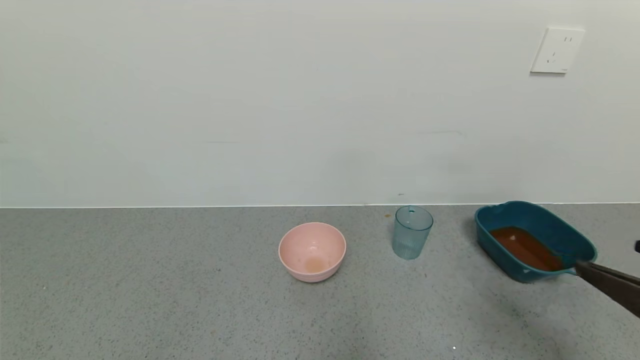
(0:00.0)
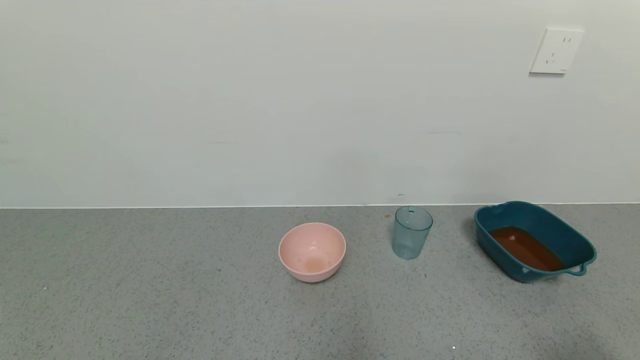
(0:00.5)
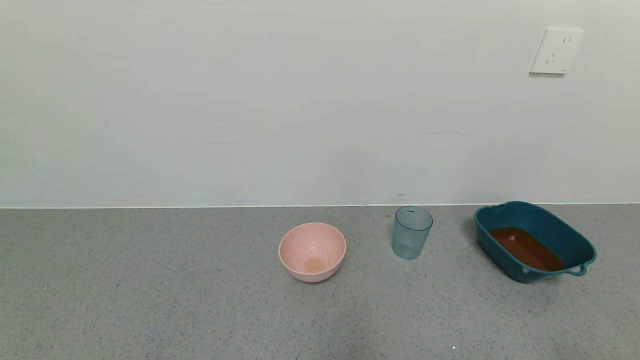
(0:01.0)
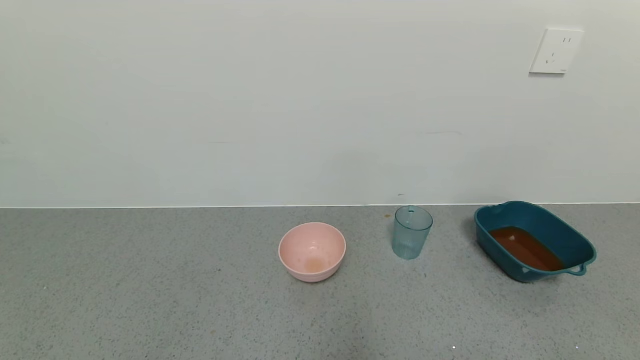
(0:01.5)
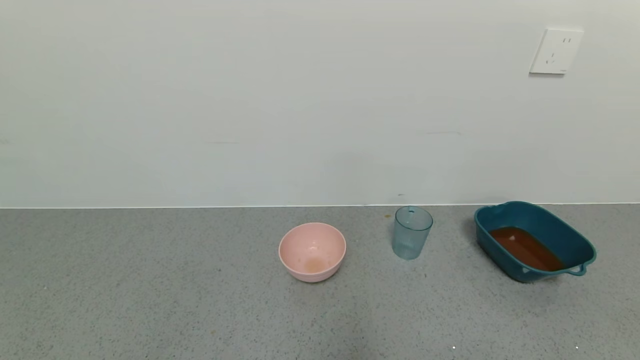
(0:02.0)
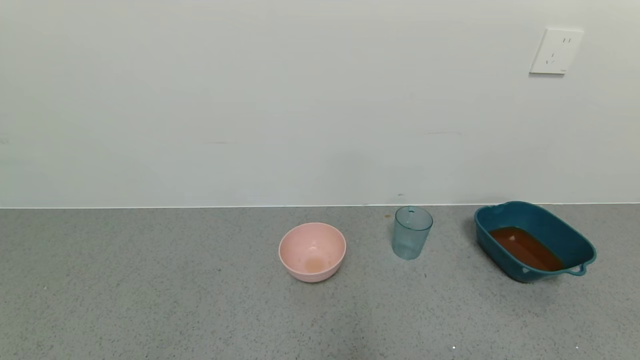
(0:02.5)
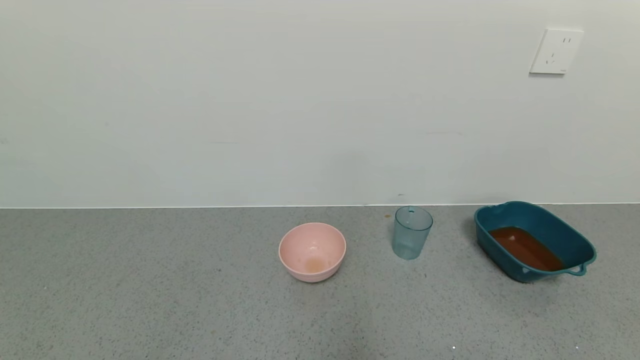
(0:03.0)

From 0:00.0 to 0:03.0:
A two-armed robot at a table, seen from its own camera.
Task of the whole recording: use a gripper to pick up the cup and pour the liquid into a bowl or tray.
From 0:00.0 to 0:01.5: The right gripper shifts approximately 15 cm backward and to the right.

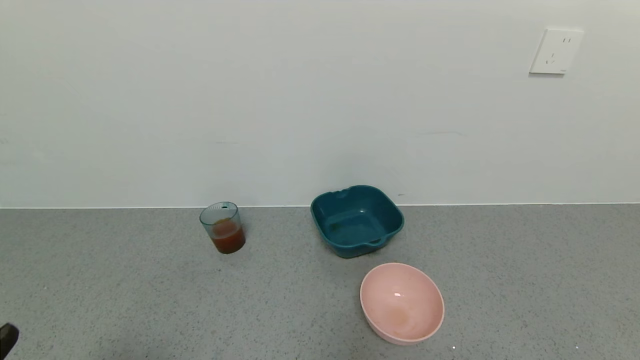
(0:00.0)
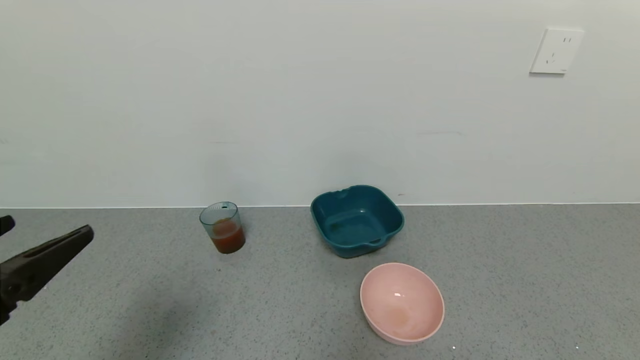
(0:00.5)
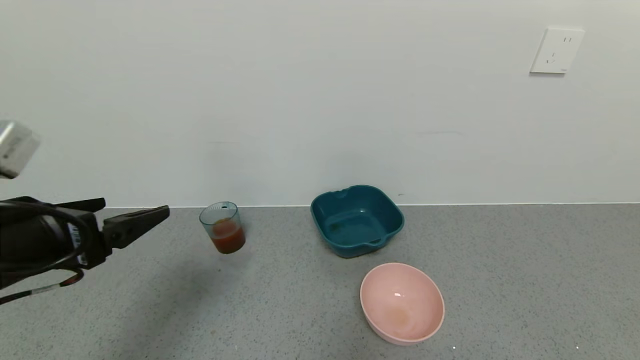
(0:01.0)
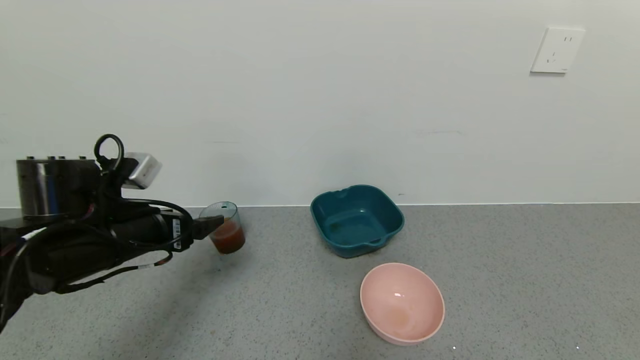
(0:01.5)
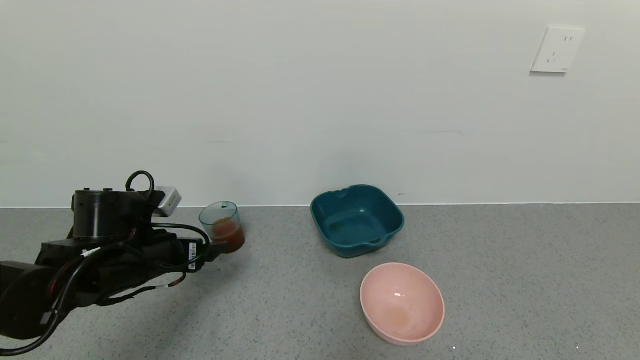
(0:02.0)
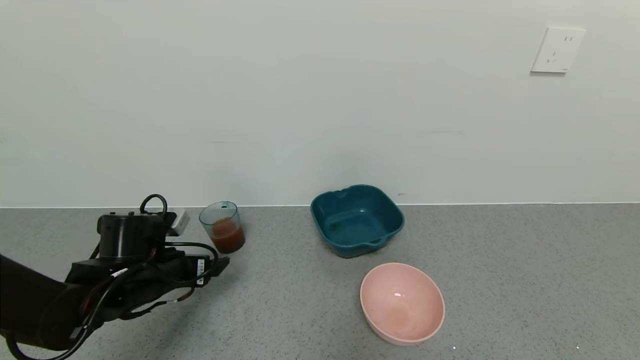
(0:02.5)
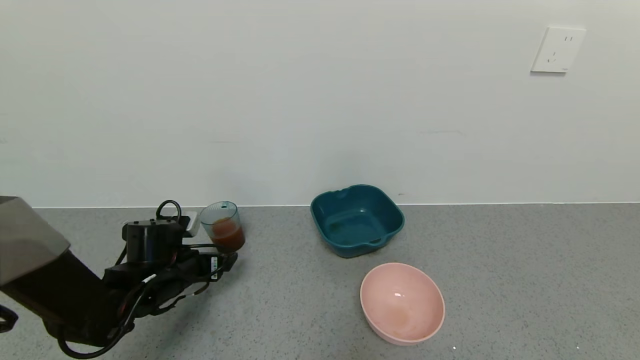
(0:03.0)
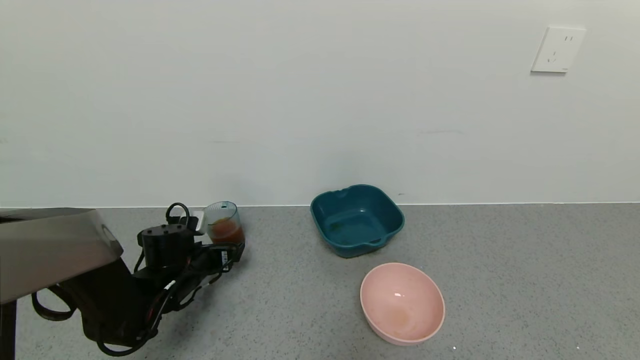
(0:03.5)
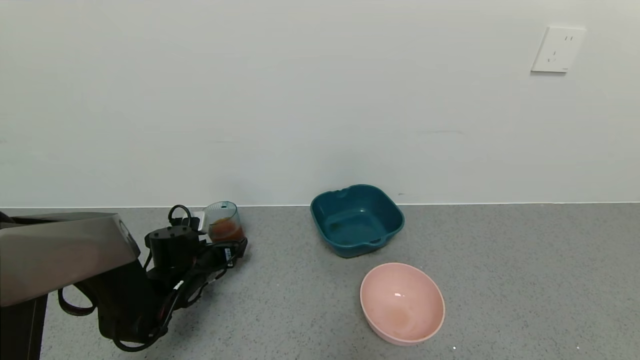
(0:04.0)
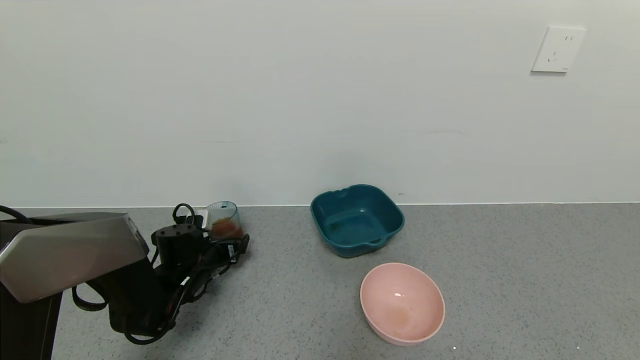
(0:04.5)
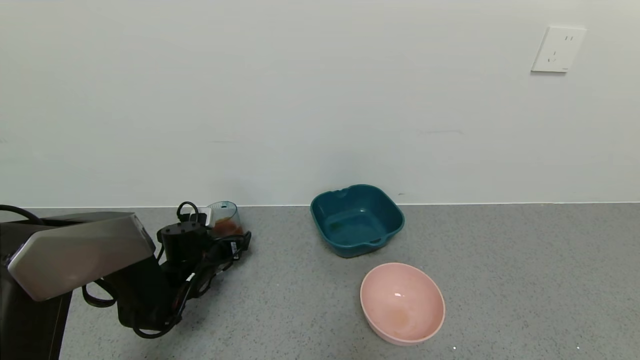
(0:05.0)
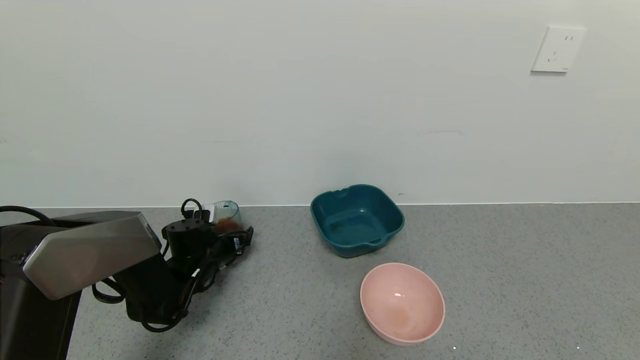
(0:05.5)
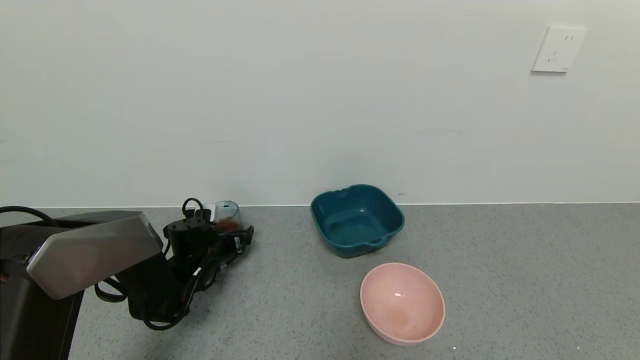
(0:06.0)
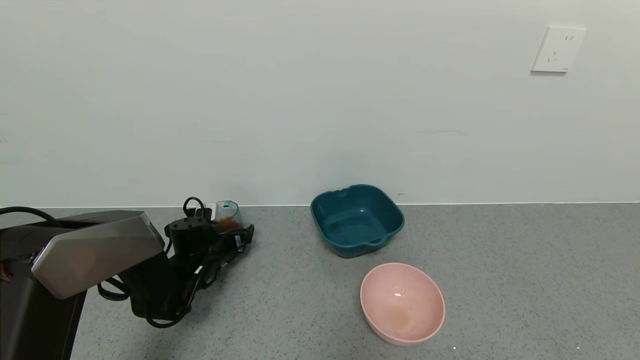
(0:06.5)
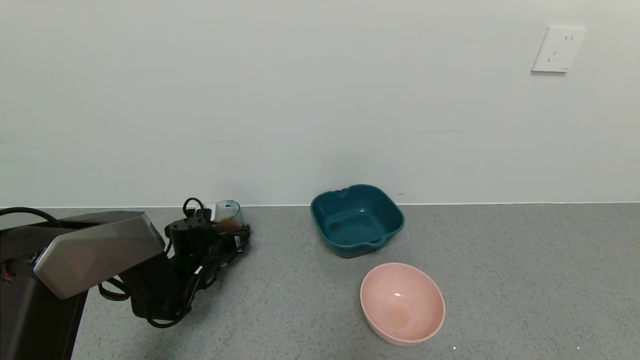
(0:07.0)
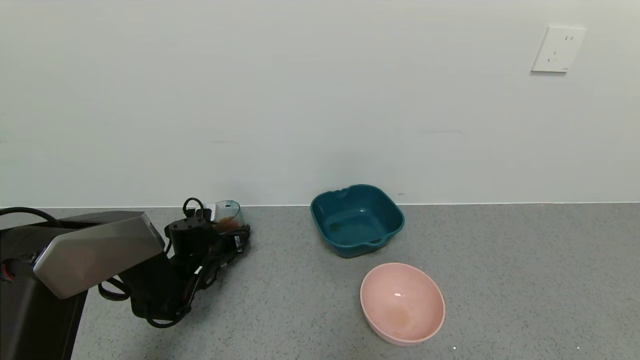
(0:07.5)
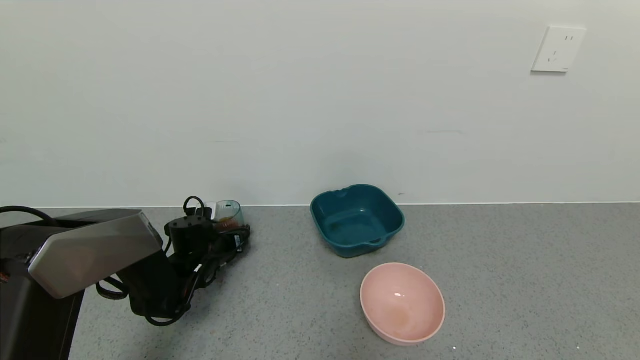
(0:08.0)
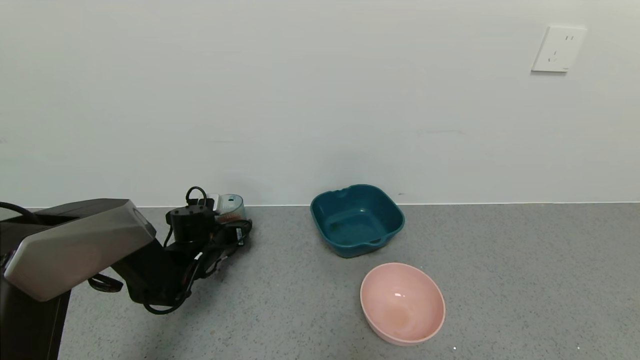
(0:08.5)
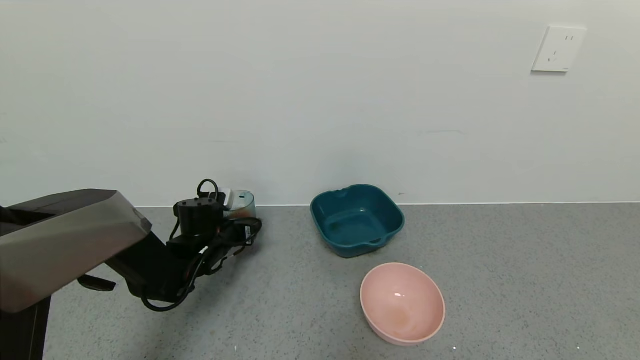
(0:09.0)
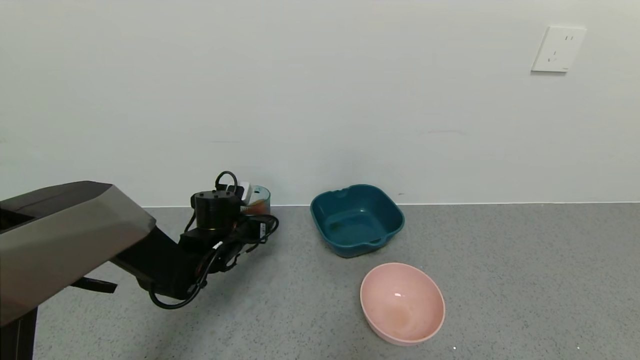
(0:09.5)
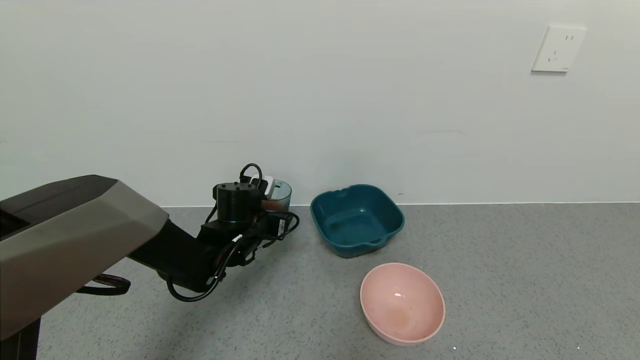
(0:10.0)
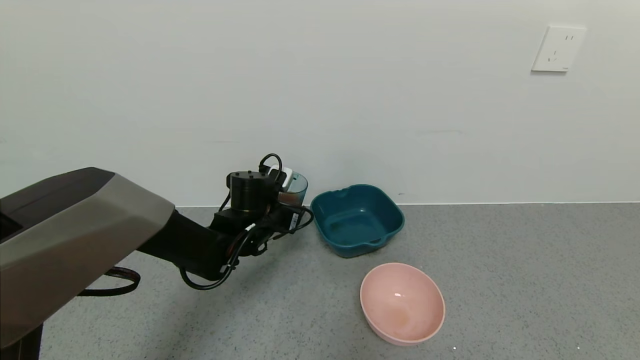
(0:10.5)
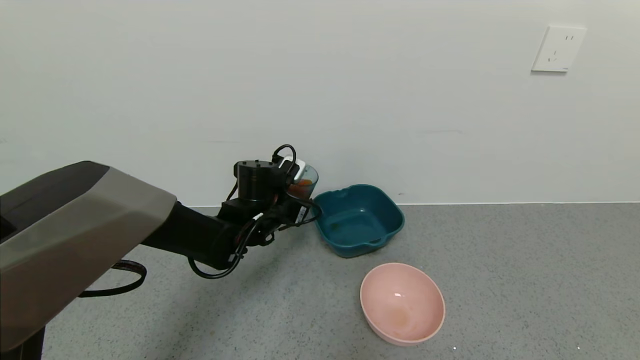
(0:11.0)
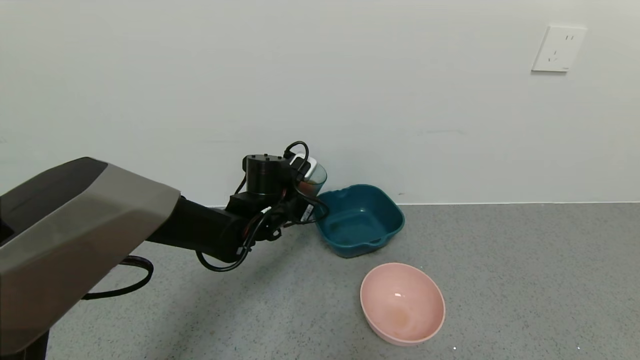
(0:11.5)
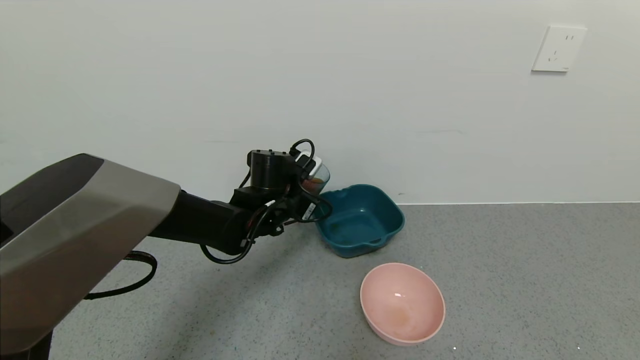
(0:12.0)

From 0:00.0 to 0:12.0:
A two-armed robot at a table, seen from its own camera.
Task of the whole recording: use a gripper to pick up the cup and pour the liquid into a bowl or tray.
Step, from 0:00.0 to 0:07.5: Grasp the glass of black tea with the left gripper.
From 0:00.0 to 0:02.0: The left gripper heads forward, covering about 25 cm.
From 0:02.0 to 0:04.0: The left gripper travels downward and forward by about 15 cm.
From 0:04.0 to 0:06.0: The grippers make only small movements.
From 0:06.0 to 0:08.0: The left gripper closes its fingers.
From 0:08.0 to 0:10.0: The left gripper shifts some 15 cm to the right and upward.
From 0:10.0 to 0:12.0: The left gripper travels to the right by about 5 cm.

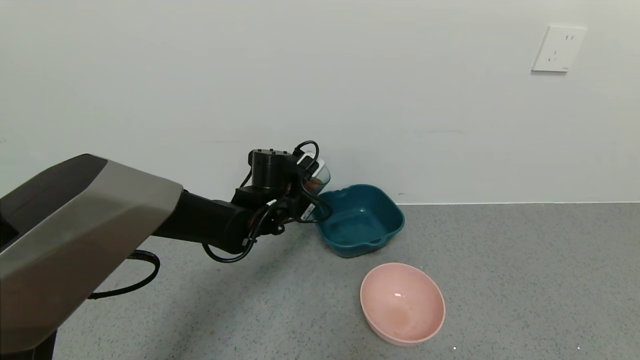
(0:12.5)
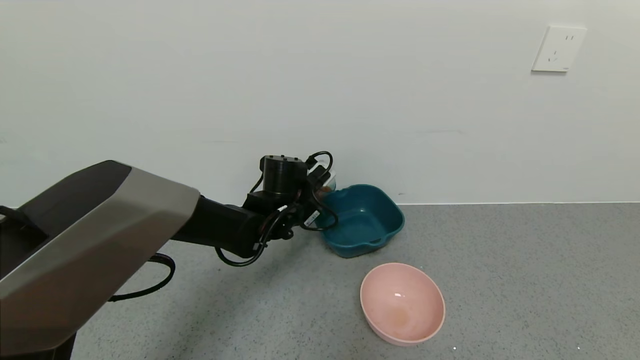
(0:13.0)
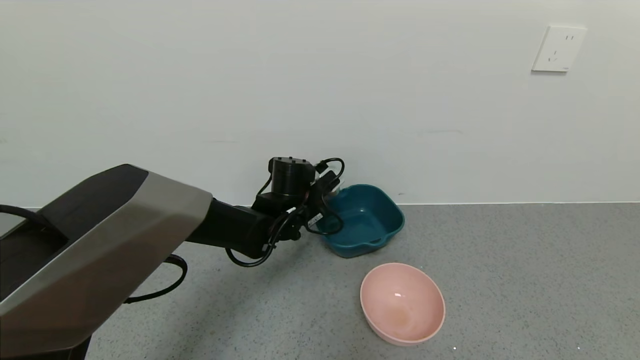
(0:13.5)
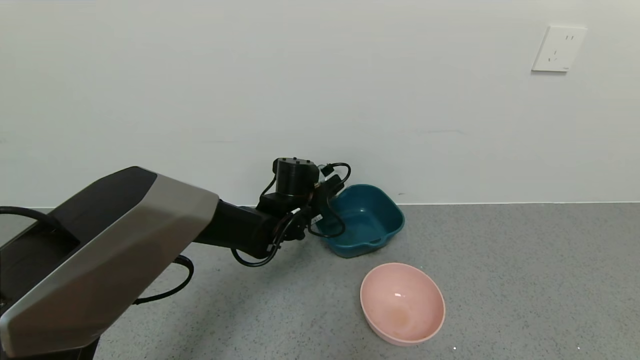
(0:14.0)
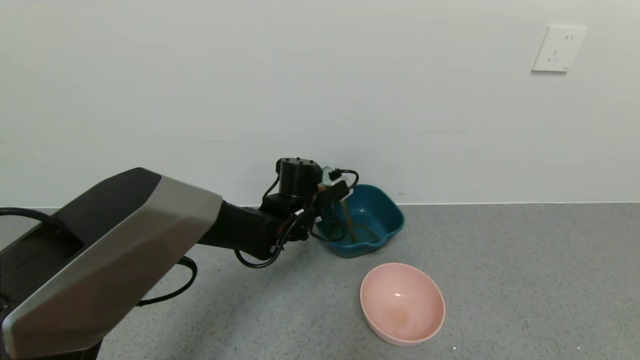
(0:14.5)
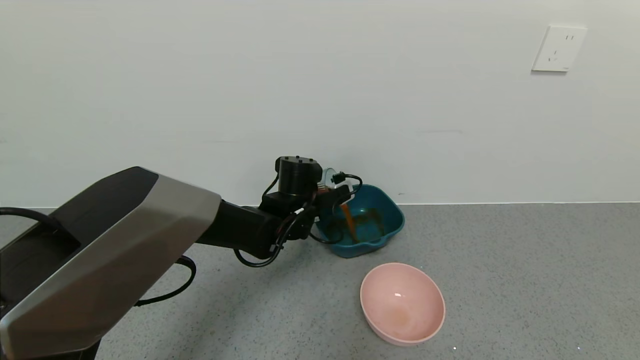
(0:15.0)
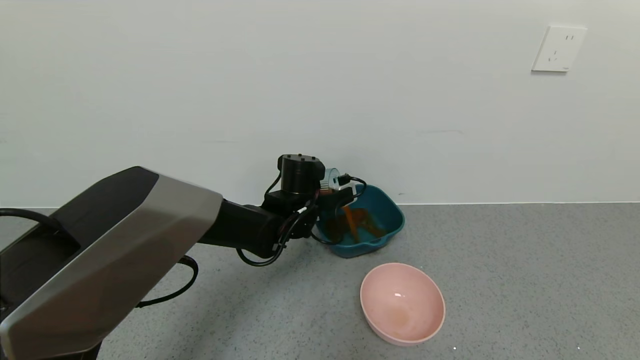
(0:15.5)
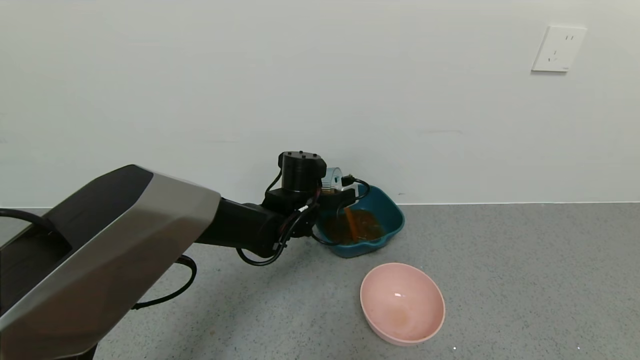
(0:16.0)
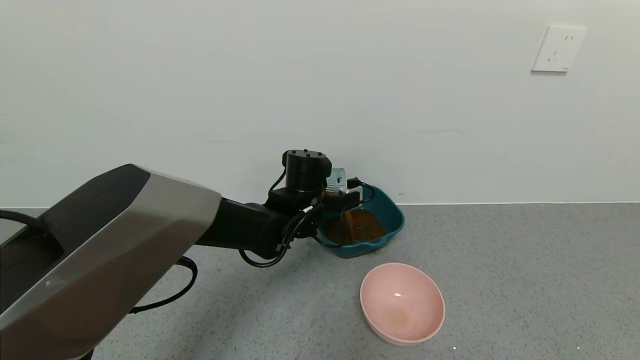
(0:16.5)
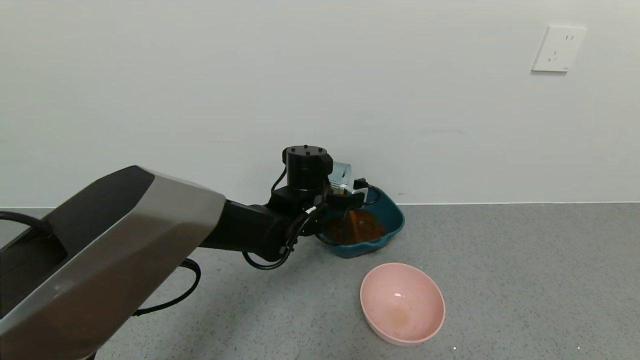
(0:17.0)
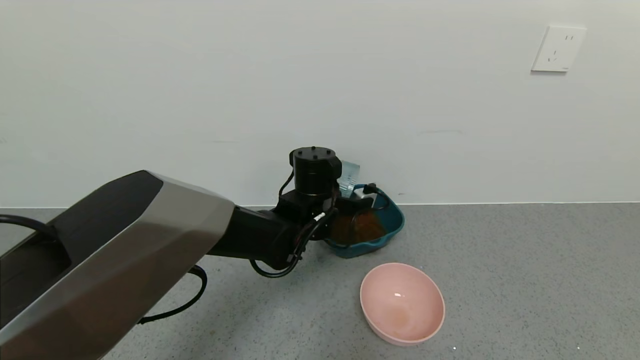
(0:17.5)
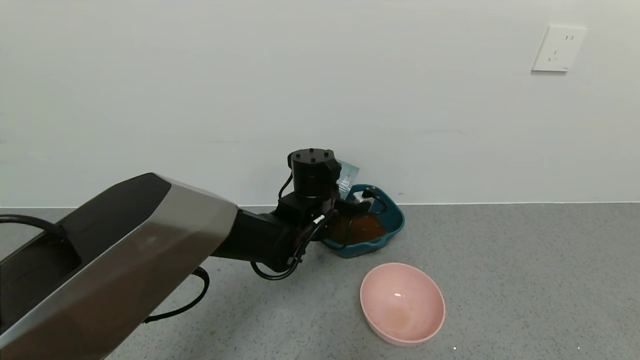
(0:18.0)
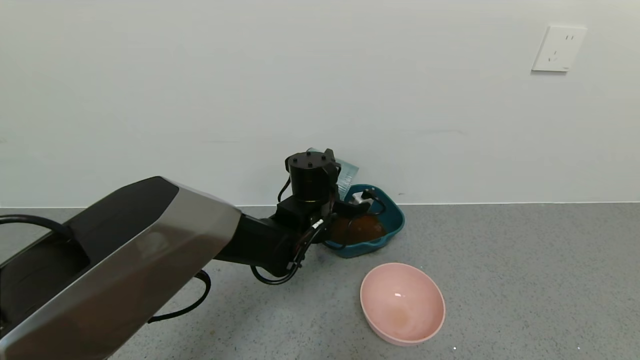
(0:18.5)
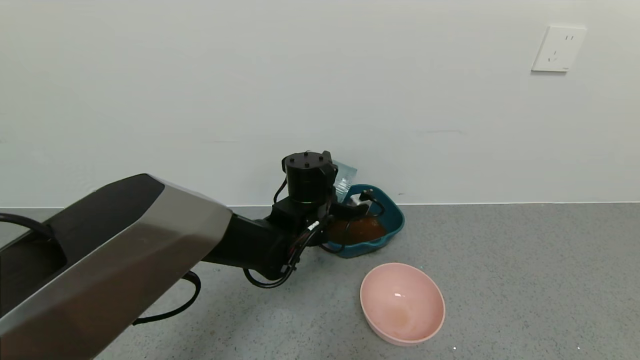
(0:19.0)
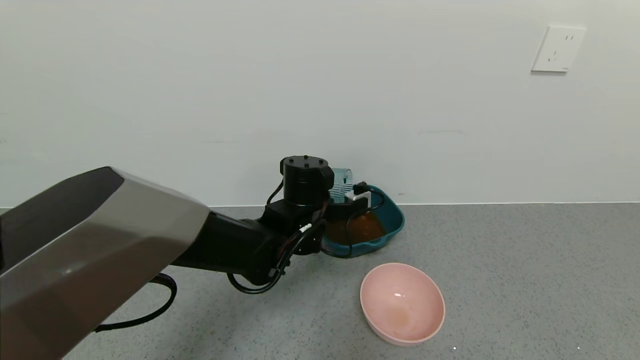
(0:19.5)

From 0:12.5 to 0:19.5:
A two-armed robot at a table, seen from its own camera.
Task of the whole recording: use a gripper to pick up the cup and pour the liquid into a bowl or tray.
From 0:14.5 to 0:16.0: The grippers stay close to where they were, moving slightly.
From 0:17.5 to 0:19.5: There are only small adjustments of the grippers.
